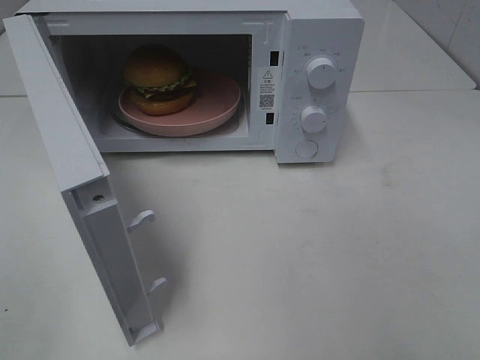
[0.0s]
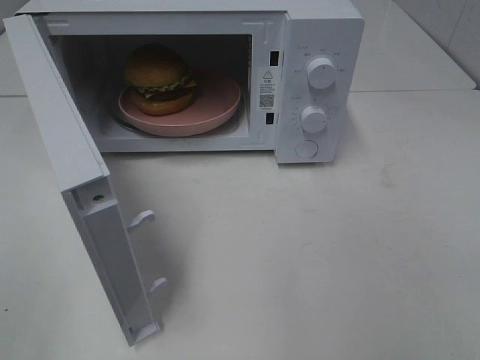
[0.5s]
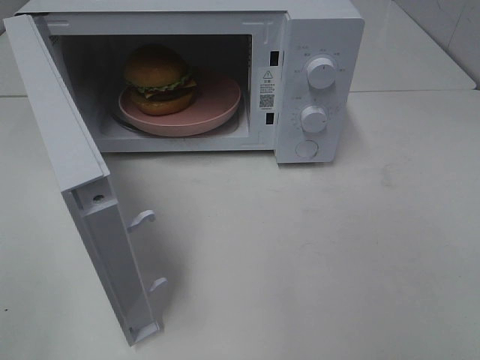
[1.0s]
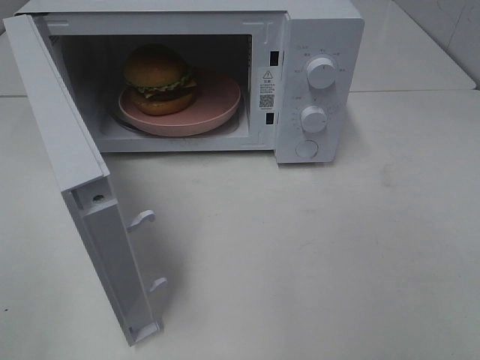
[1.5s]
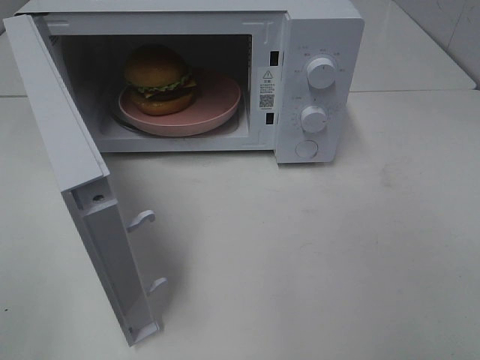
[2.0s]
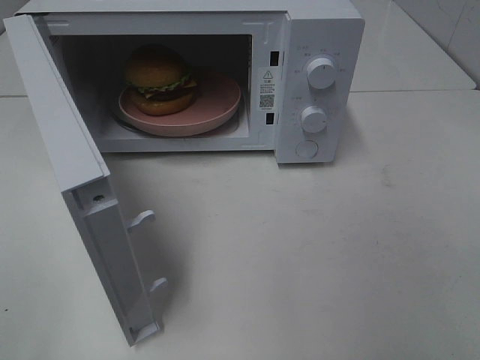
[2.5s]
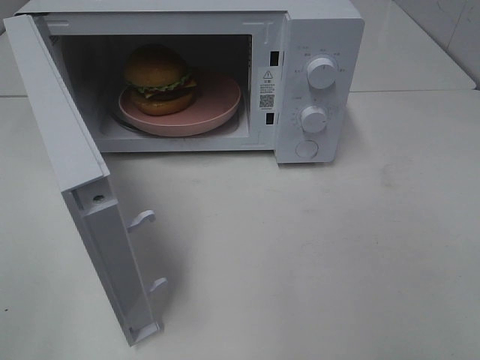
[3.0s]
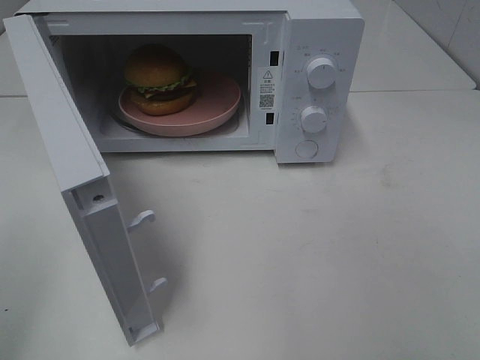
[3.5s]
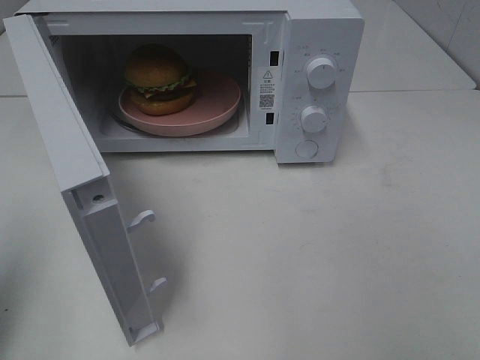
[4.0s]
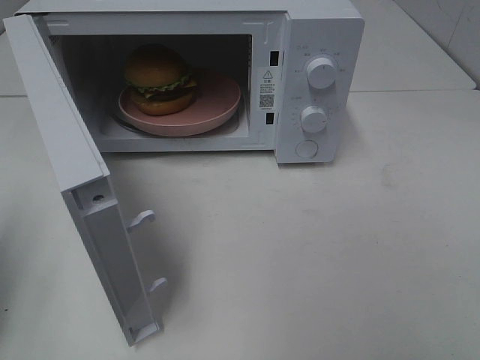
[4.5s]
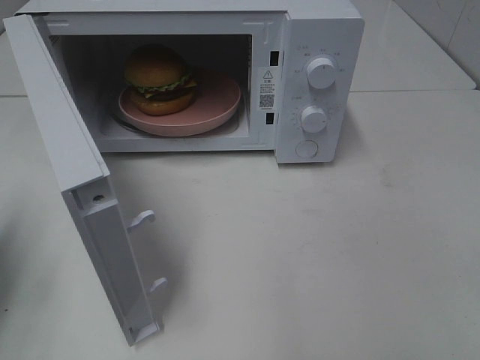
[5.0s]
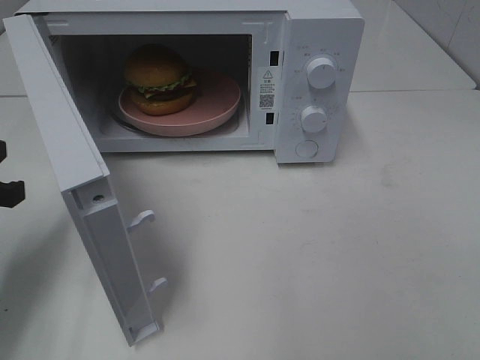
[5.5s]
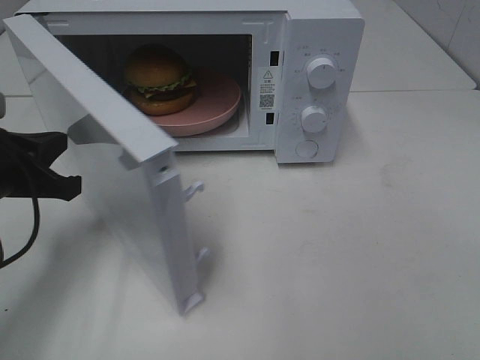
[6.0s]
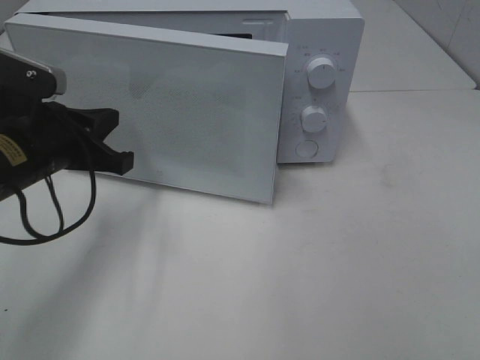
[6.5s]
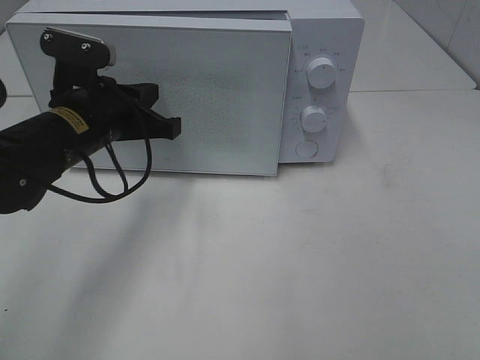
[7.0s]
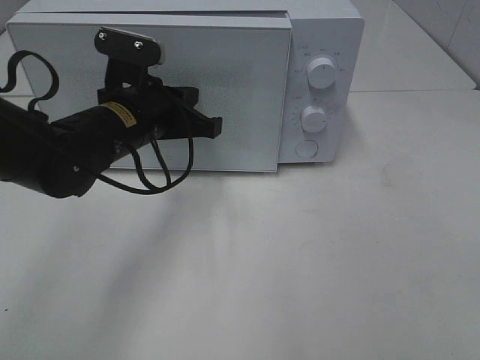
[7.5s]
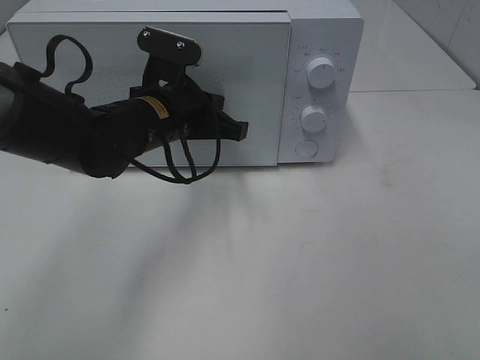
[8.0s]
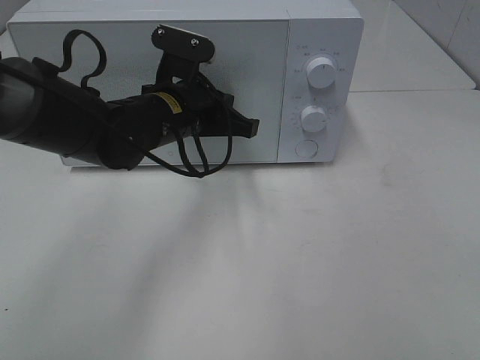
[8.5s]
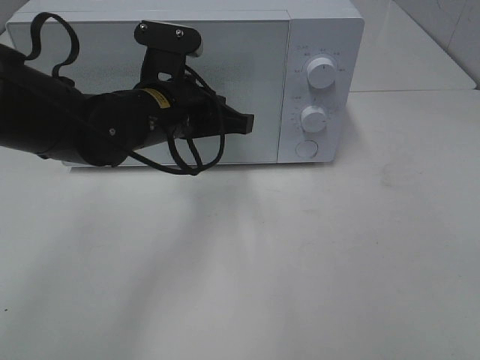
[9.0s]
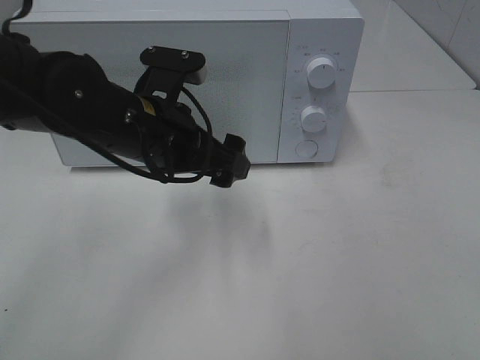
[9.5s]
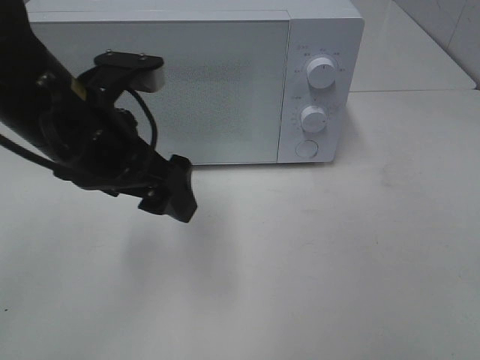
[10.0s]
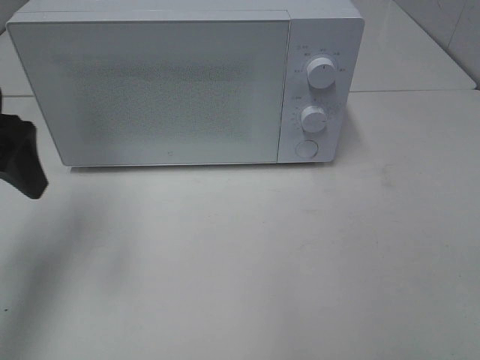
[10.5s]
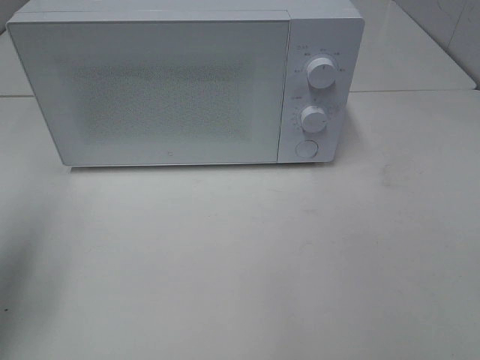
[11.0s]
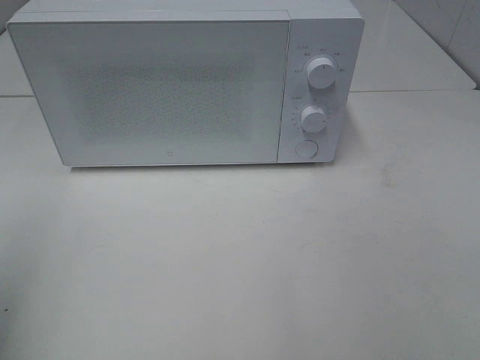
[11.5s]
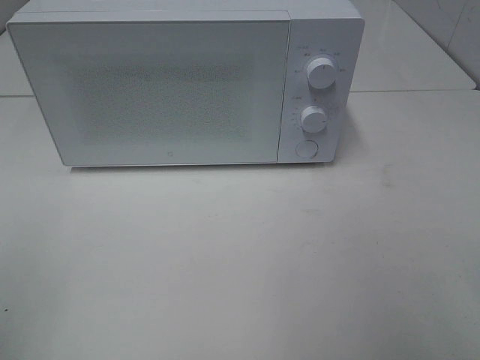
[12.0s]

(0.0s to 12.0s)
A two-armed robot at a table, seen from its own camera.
Task of the whole recording: Heat the burger.
Step, 0.0s - 9.5s: Left hand: close the microwave door.
2.0s - 4.0s: The left gripper moves forward, approximately 10 cm, and closes up.
4.0s - 6.0s: The left gripper is displaced forward, downward and to the right by approximately 20 cm.
6.0s - 8.0s: The left gripper moves to the right and forward, some 20 cm.
8.0s - 10.0s: The left gripper travels backward and upward by some 10 cm, and opens its fingers.
10.0s - 12.0s: The left gripper moves backward and to the left, some 30 cm.

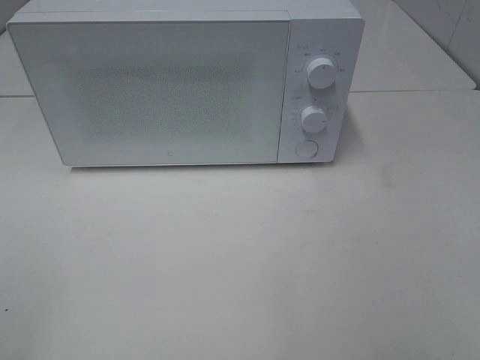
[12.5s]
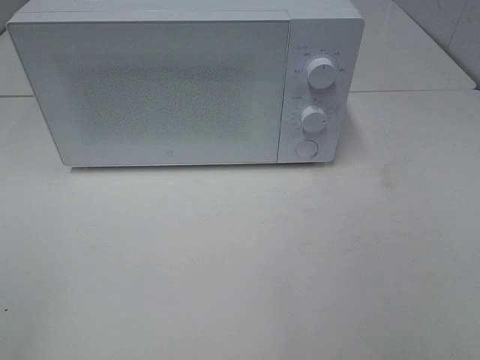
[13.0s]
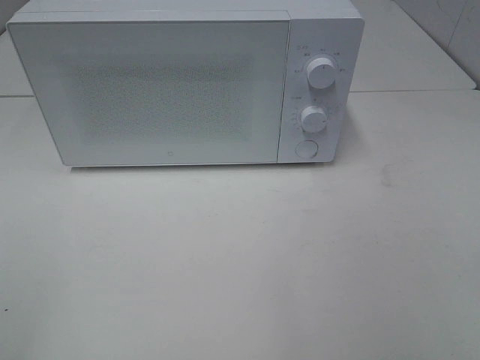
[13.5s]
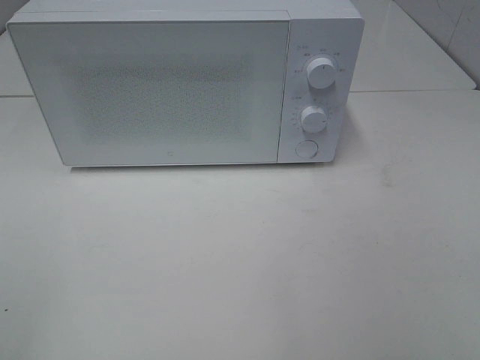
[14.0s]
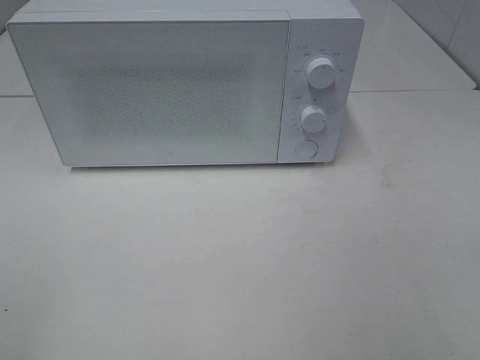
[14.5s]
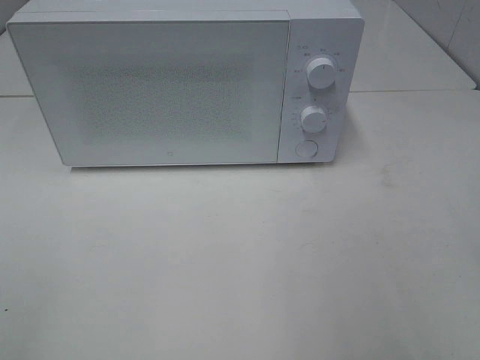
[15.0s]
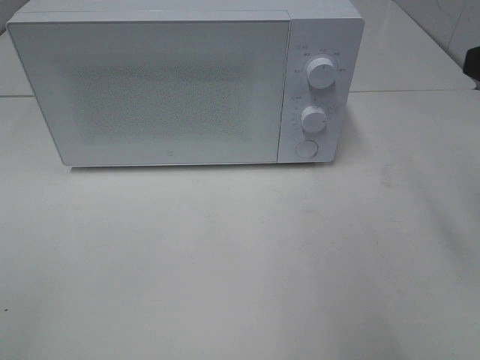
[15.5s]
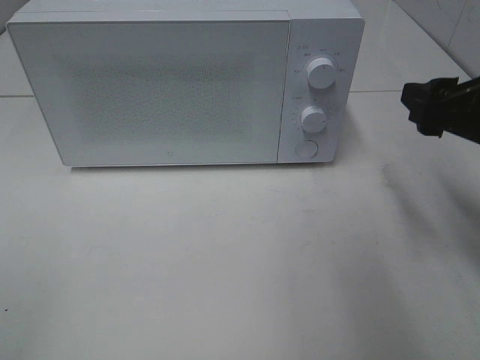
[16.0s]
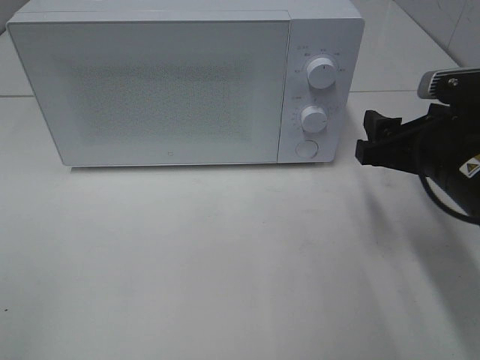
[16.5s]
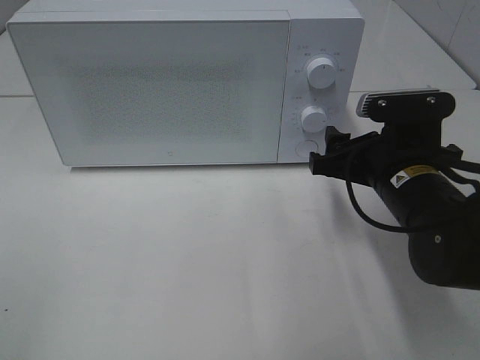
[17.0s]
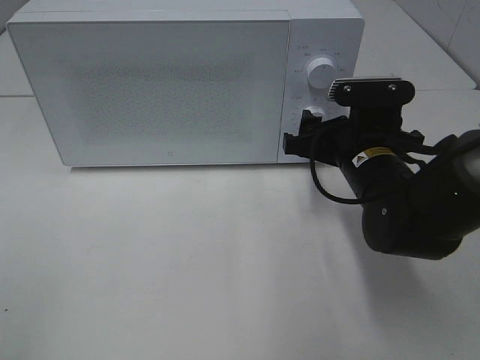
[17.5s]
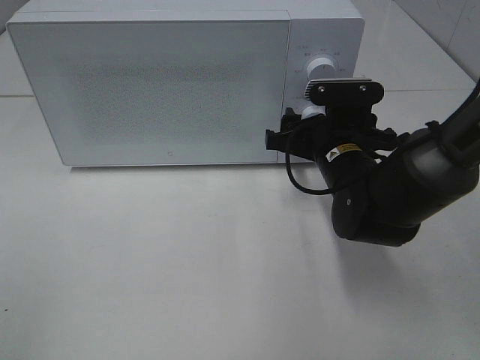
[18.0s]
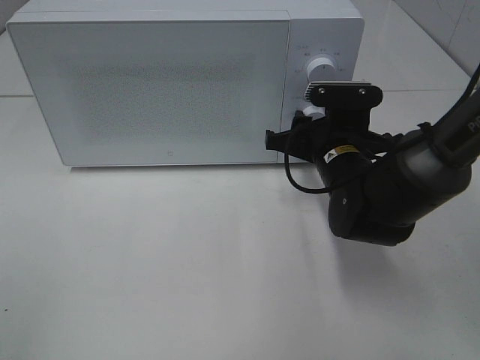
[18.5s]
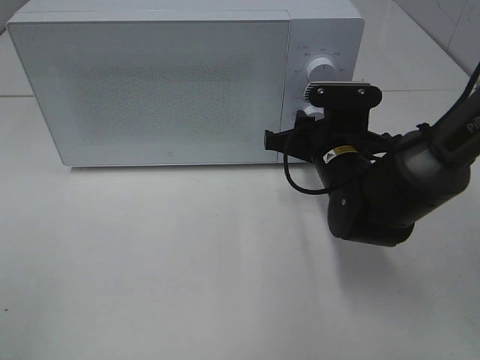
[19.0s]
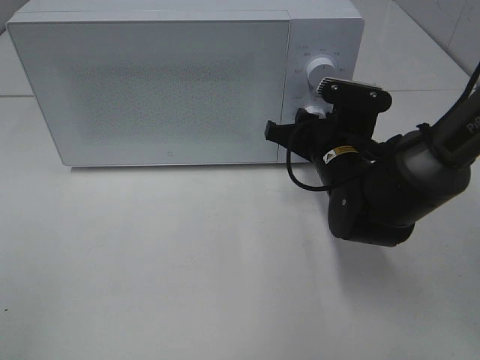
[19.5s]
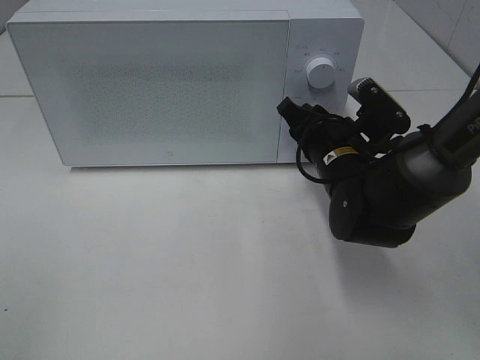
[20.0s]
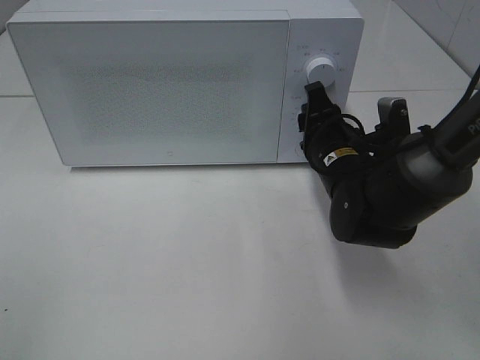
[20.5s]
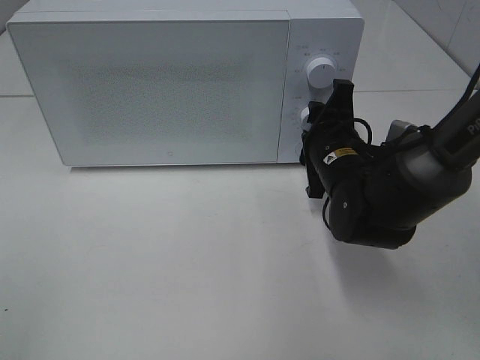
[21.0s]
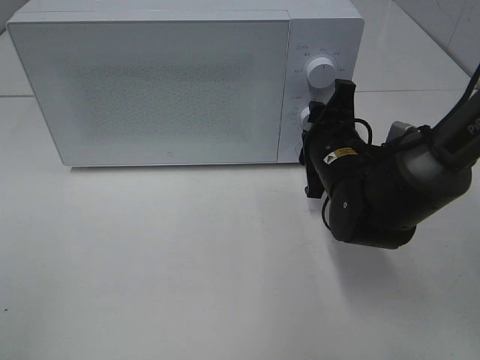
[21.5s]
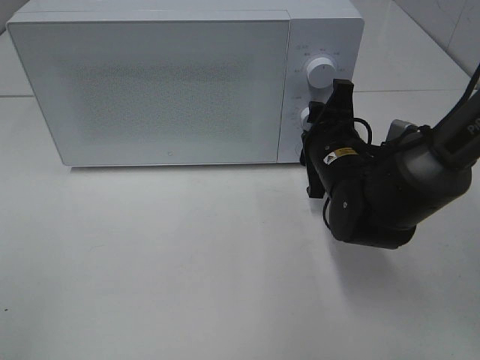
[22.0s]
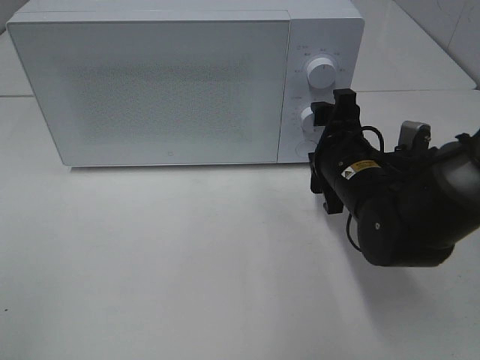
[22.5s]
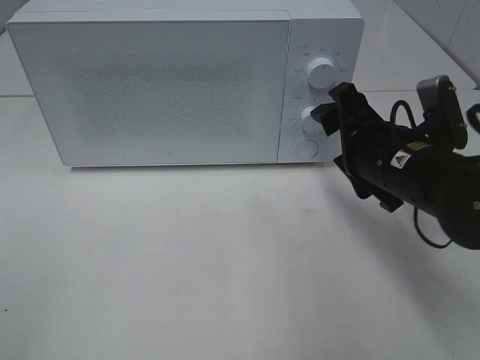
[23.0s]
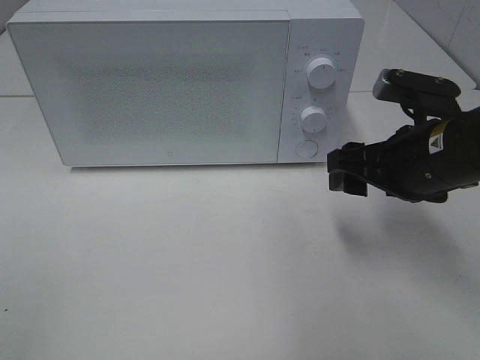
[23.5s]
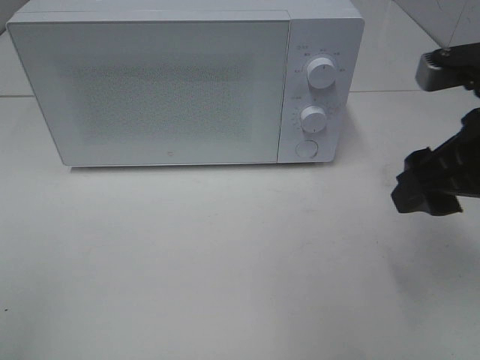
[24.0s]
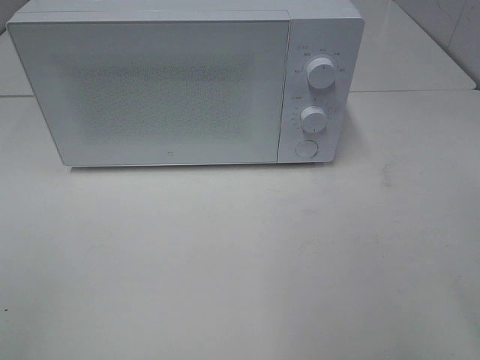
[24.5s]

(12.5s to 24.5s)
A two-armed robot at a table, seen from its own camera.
Task of the whole recording: Heat the burger.
Step, 12.5s - 22.0s: Right hand: twist timer button.
14.5s - 16.5s: The right gripper is displaced forward and downward by roughly 25 cm.
16.5s - 18.5s: The right gripper shifts approximately 15 cm to the left, forward and downward.
20.5s - 22.5s: The right gripper opens.
22.5s - 24.5s: The right gripper goes some 30 cm upward, backward and to the right.

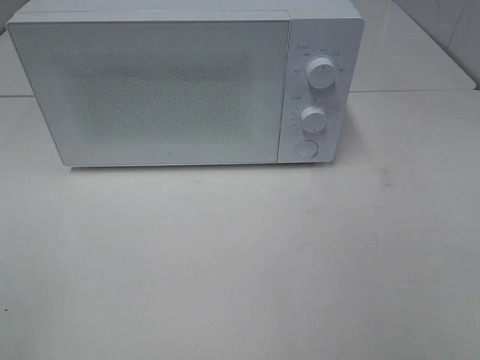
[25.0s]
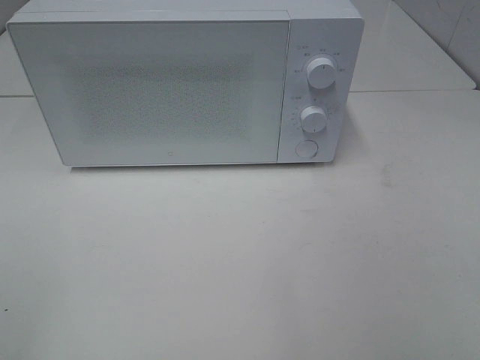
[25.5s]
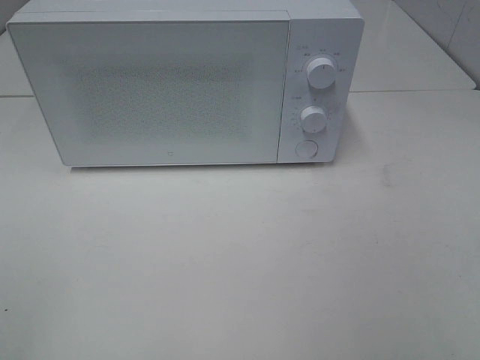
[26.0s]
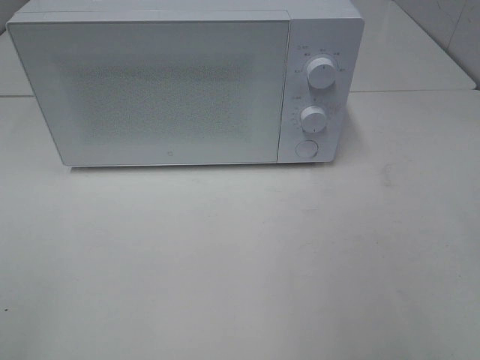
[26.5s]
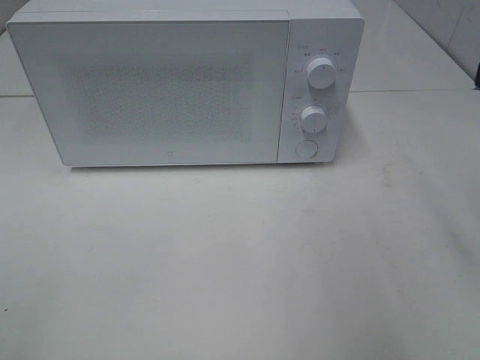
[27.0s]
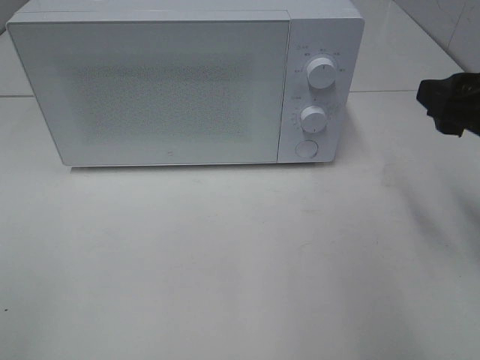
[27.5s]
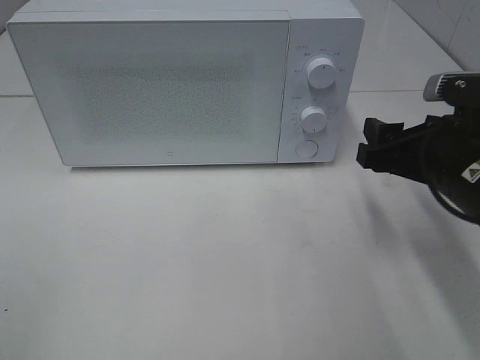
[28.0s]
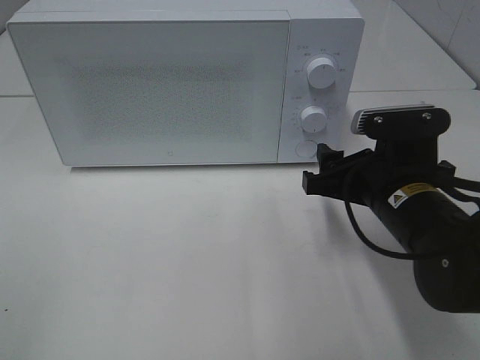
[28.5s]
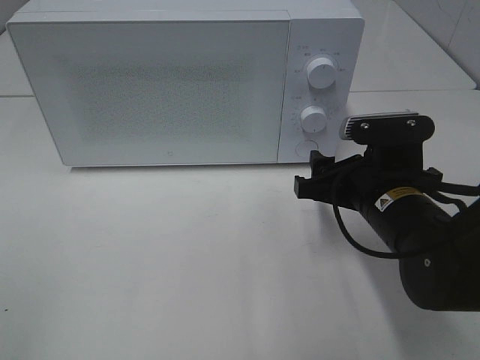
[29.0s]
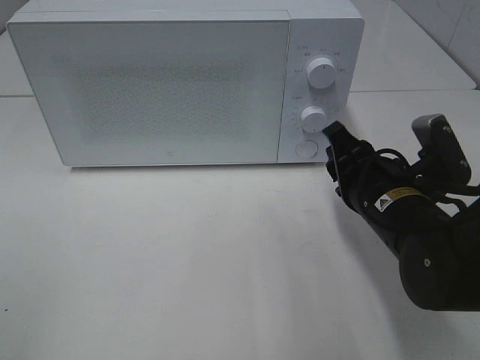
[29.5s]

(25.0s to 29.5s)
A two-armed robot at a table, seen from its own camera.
Task of the whole recording: Heat the burger.
27.0s - 29.5s: The right gripper is displaced downward and to the left by roughly 20 cm, and closes its fingers.
